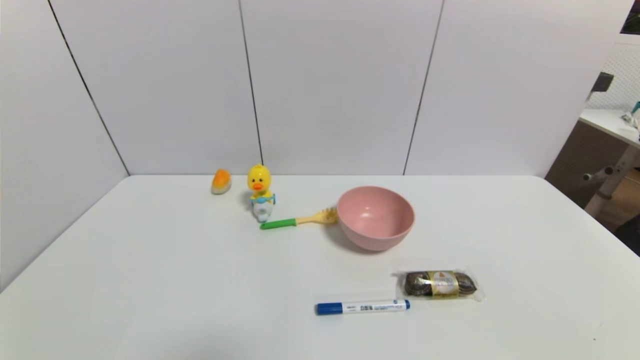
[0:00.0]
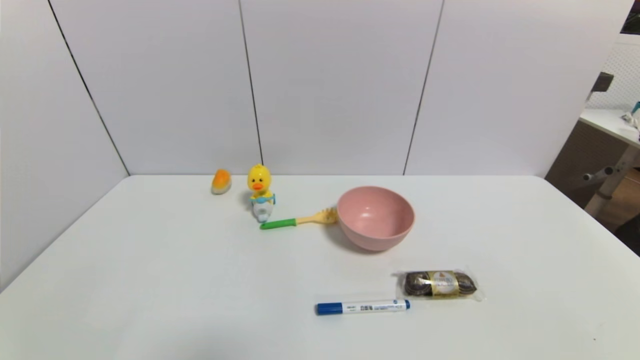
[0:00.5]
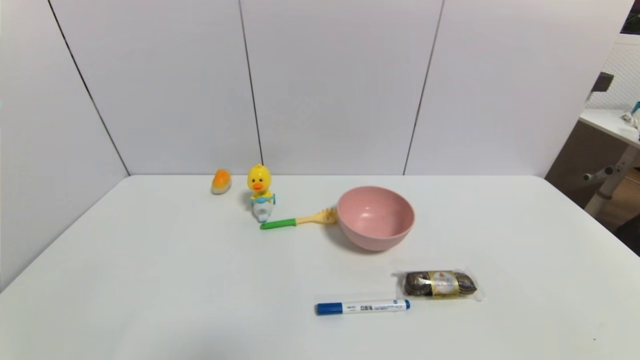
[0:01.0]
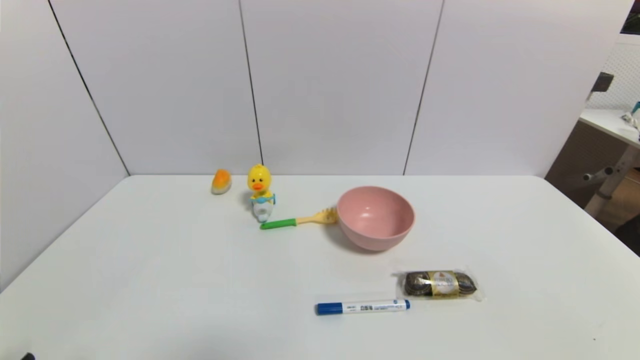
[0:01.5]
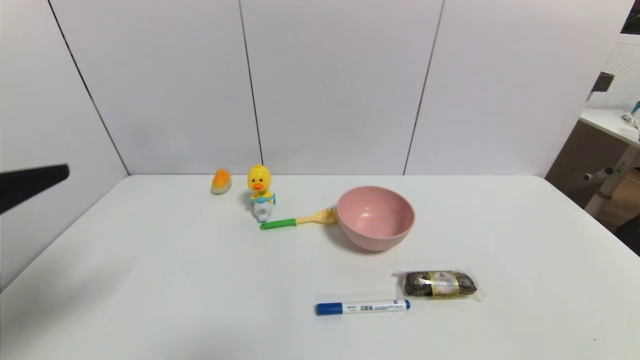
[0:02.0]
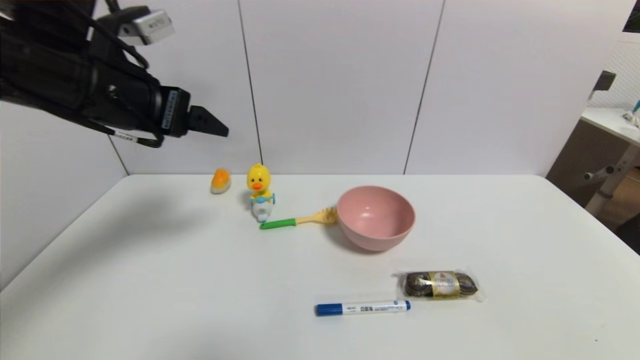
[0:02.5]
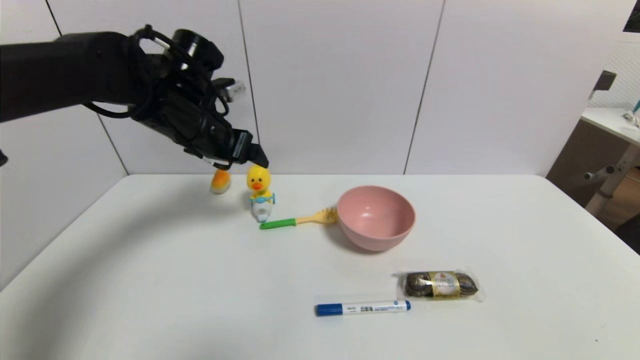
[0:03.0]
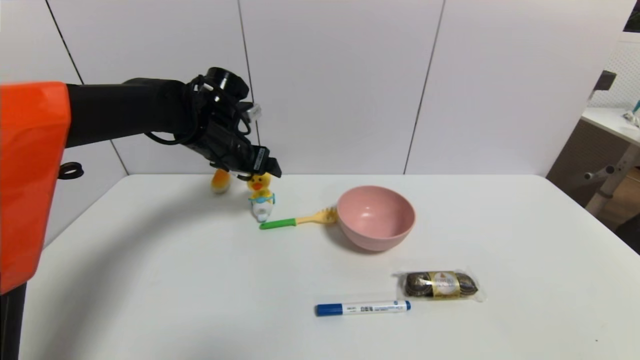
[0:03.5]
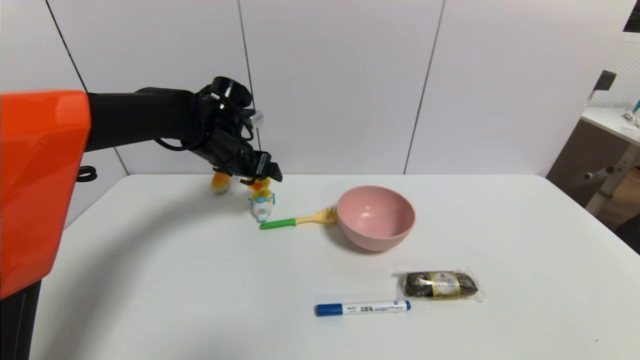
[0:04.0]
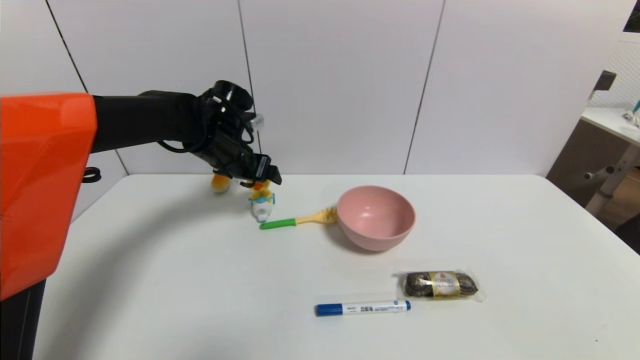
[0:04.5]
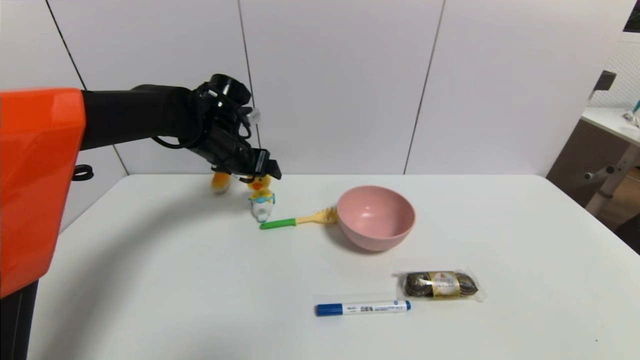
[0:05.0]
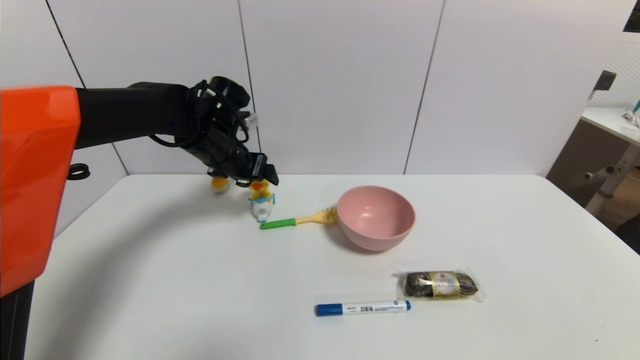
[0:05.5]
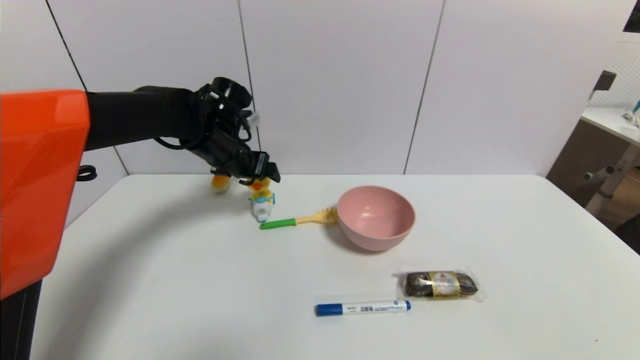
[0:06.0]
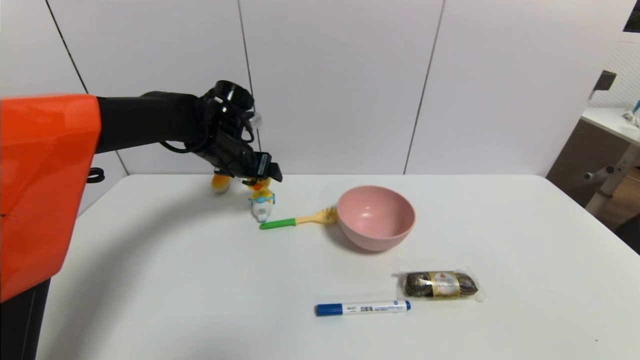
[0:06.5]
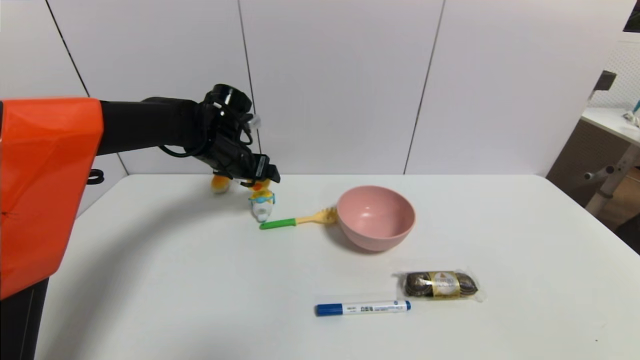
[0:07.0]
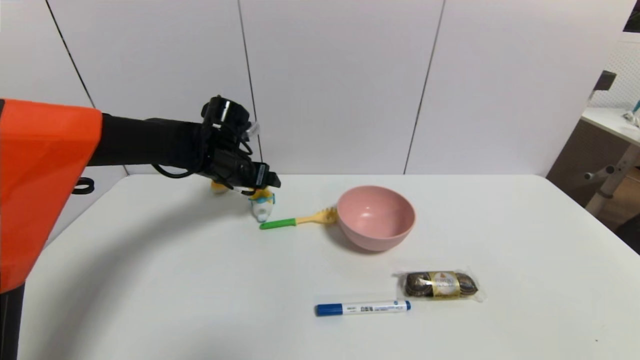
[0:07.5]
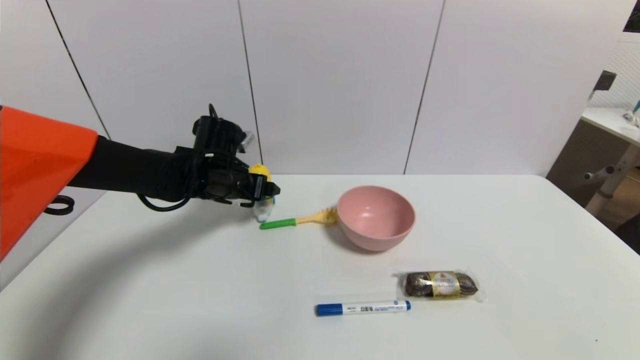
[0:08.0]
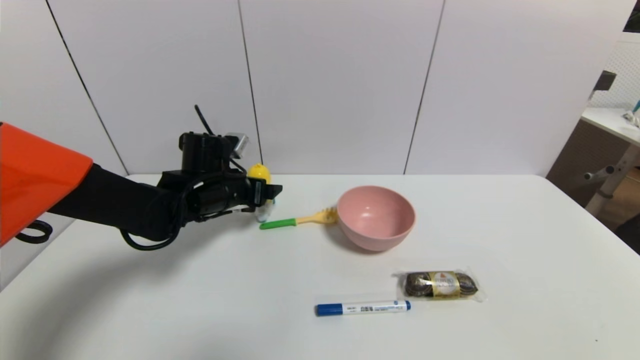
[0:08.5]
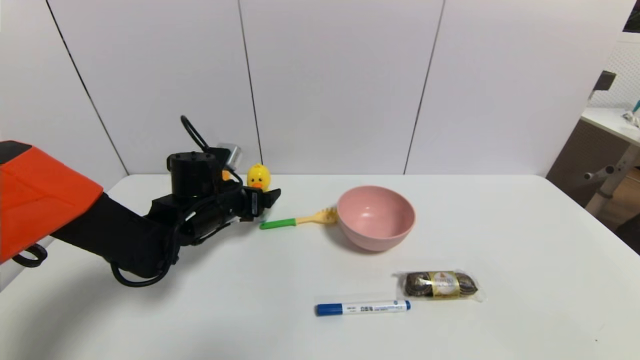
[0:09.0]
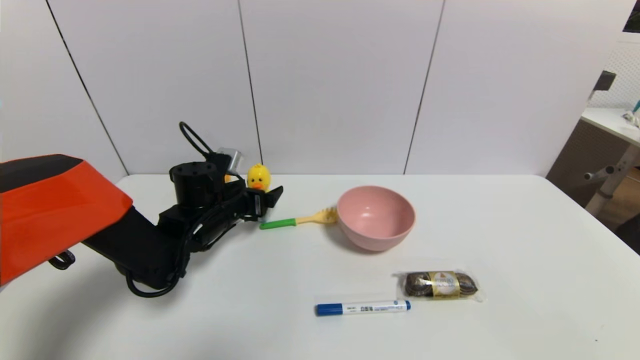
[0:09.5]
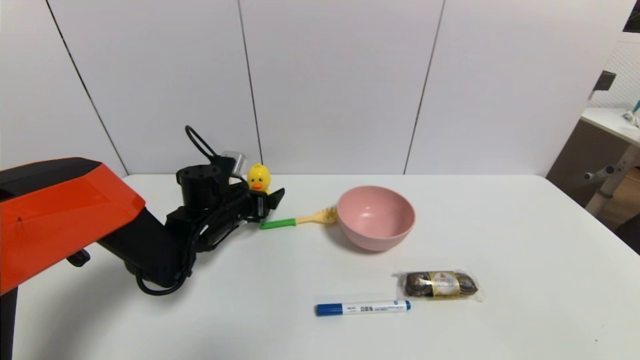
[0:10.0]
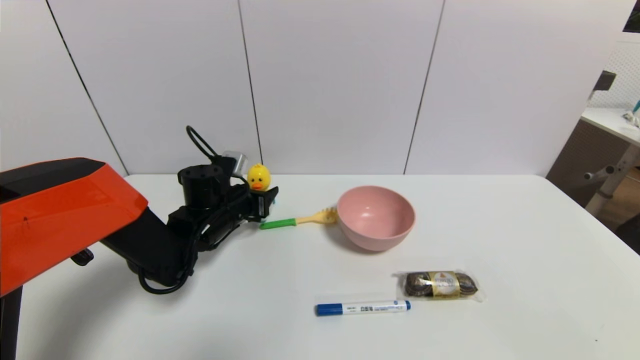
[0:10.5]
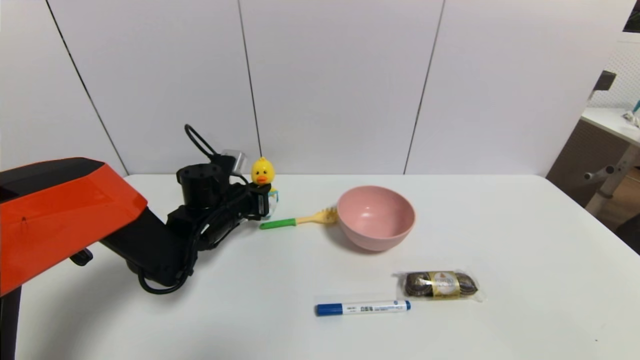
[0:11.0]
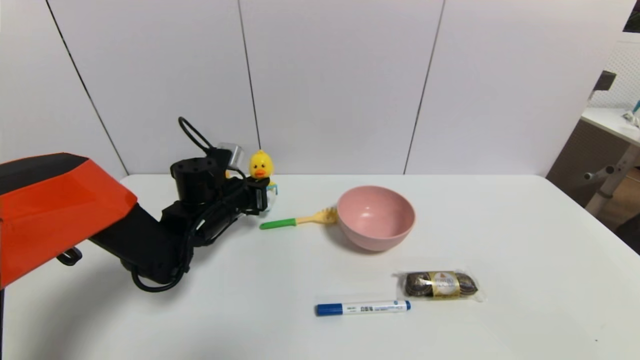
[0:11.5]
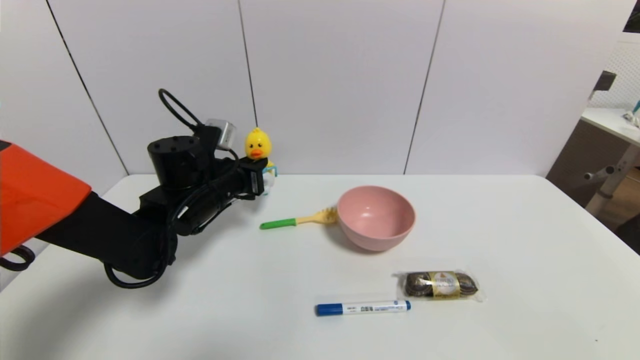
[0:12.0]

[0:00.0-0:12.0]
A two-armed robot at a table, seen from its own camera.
Task of the whole recording: use a gripper to pick the target object and place on the pink bowl.
Step, 0:00.0 to 0:11.0: Grasp the duck toy with the left gripper.
0:00.0 to 0:02.0: The left gripper travels upward and forward by about 25 cm.
0:02.0 to 0:04.0: The left gripper travels forward and to the right by some 35 cm.
0:04.0 to 0:06.0: Both grippers stay put.
0:06.0 to 0:08.0: The left gripper travels downward by about 5 cm.
0:08.0 to 0:10.0: The left gripper is displaced downward by about 5 cm.
0:10.0 to 0:12.0: The left gripper moves upward, approximately 5 cm, and closes its fingers.

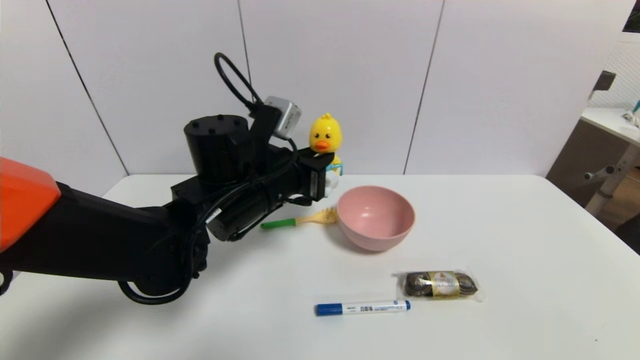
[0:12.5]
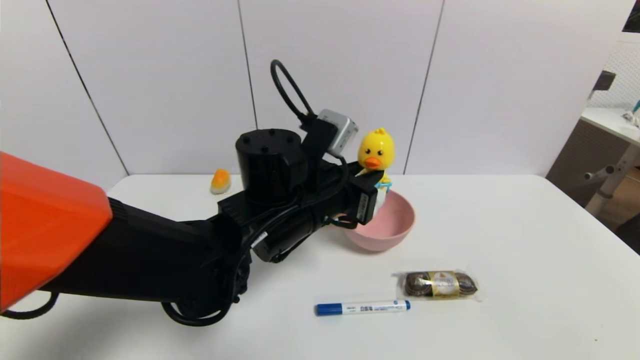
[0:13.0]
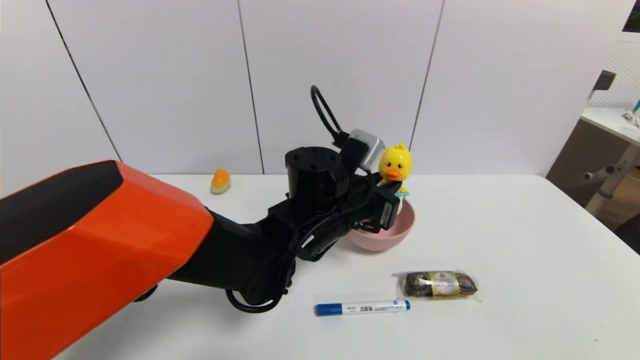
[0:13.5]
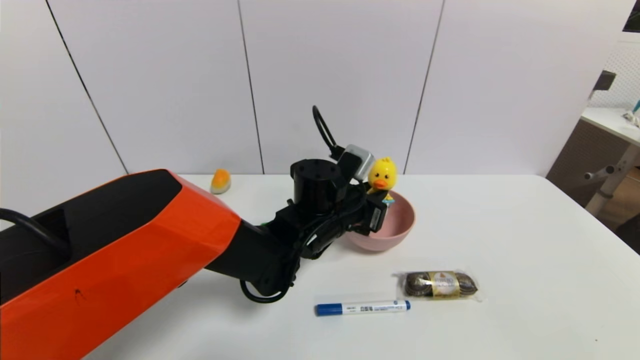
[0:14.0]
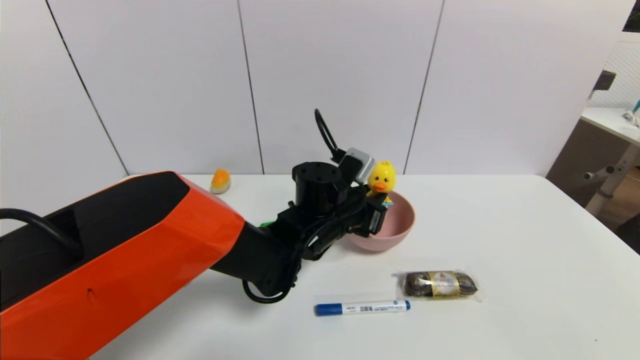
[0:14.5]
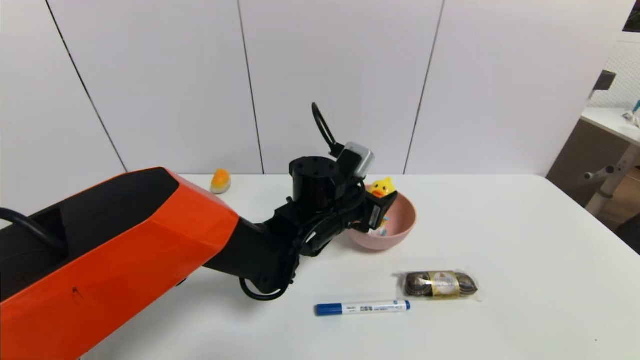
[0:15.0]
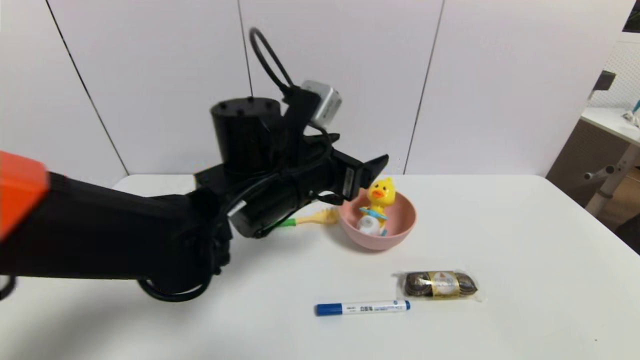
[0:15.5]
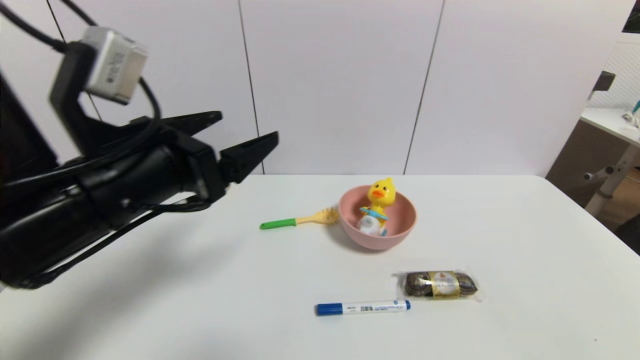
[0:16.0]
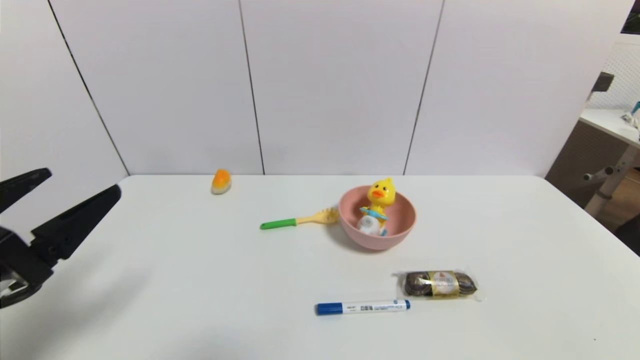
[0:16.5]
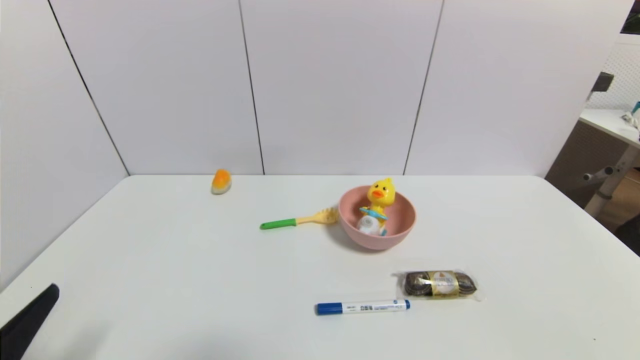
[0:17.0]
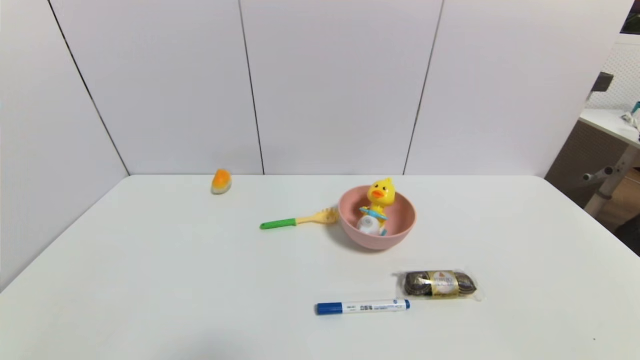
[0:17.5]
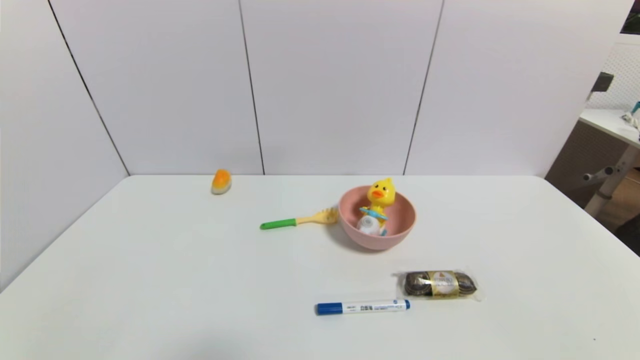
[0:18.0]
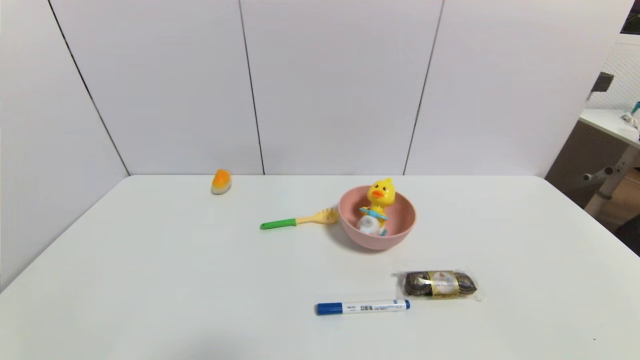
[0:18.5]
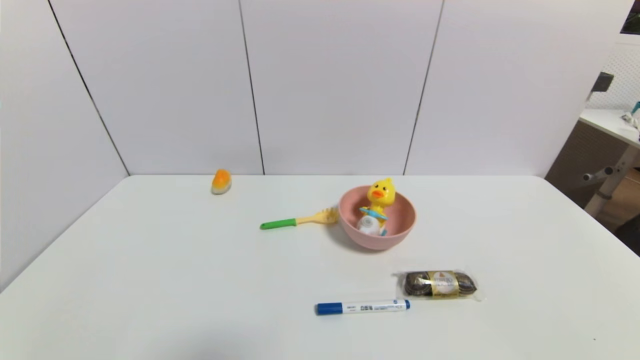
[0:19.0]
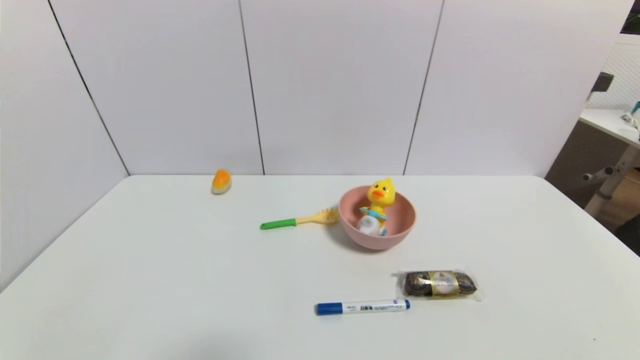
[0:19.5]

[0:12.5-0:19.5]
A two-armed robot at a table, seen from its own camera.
Task of the whole recording: use a gripper to pick the target object and place on the pink bowl.
Step, 0:12.5 to 0:15.5: Place the duck toy on the pink bowl with the left gripper.
0:12.5 to 0:14.5: The left gripper is displaced to the right and downward by about 10 cm.
0:14.5 to 0:16.0: The left gripper is displaced to the left, backward and upward by about 25 cm, and opens up.
0:16.0 to 0:17.5: The left gripper heads backward, downward and to the left, covering some 30 cm.

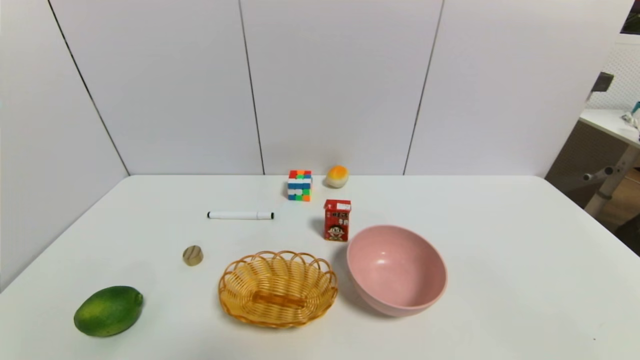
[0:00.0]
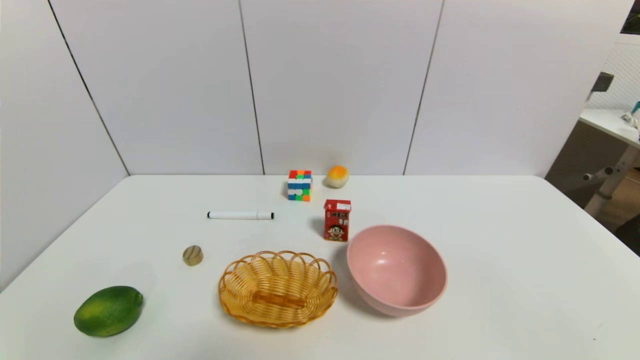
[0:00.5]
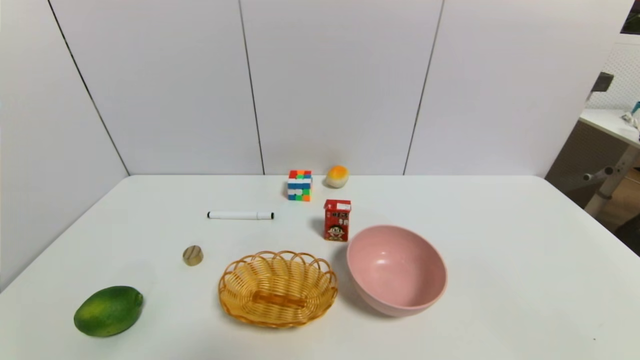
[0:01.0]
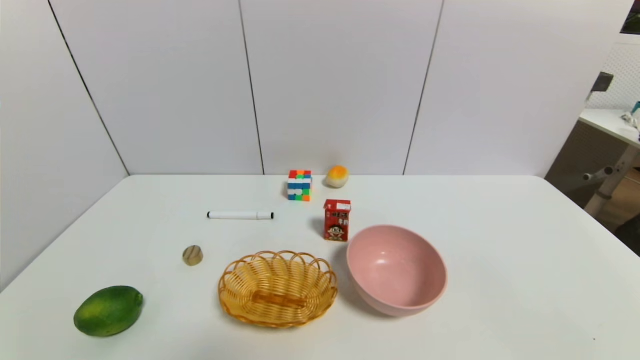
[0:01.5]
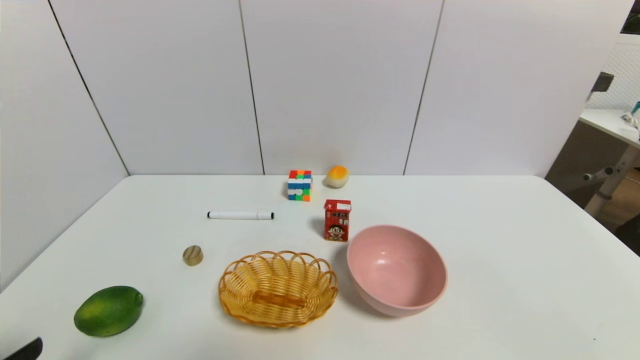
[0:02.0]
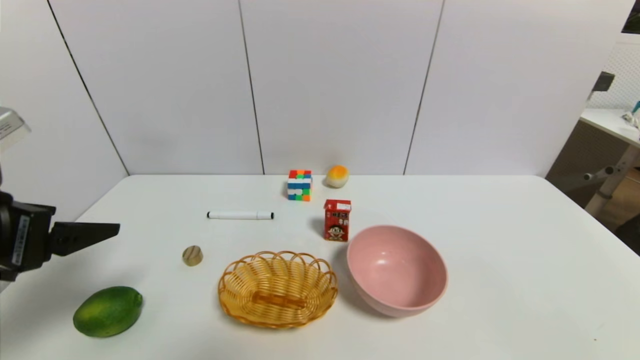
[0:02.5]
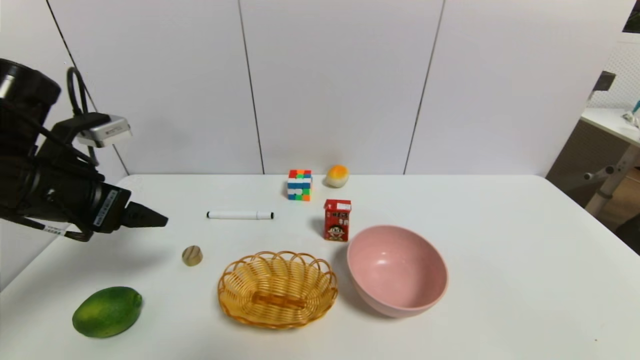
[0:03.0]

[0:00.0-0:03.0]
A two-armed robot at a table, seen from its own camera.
Task of the whole recording: use a gripper to pick the target object and place on the pink bowl.
0:00.0 to 0:01.5: Both grippers stay put.
0:01.5 to 0:03.0: The left gripper goes roughly 30 cm forward and upward.
